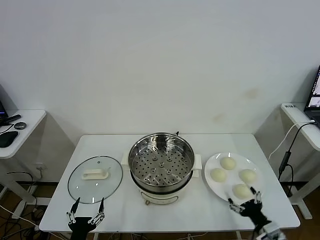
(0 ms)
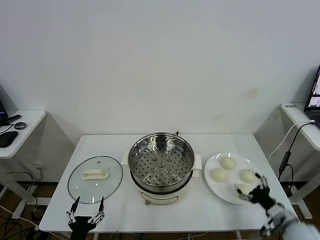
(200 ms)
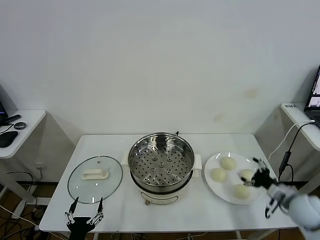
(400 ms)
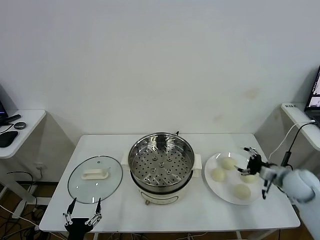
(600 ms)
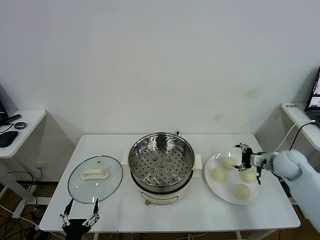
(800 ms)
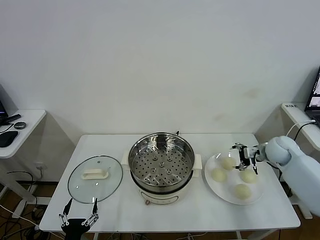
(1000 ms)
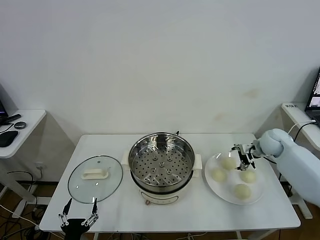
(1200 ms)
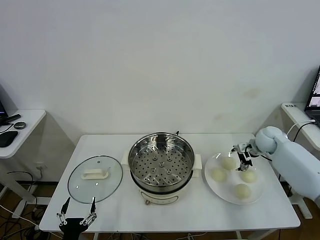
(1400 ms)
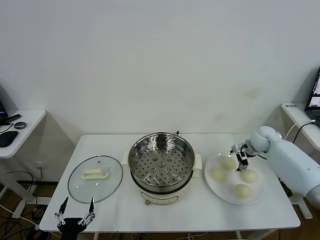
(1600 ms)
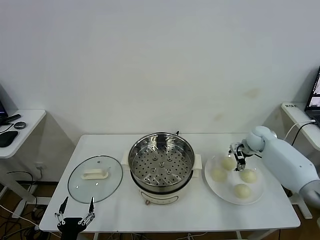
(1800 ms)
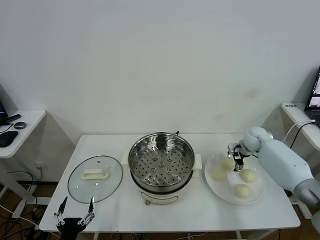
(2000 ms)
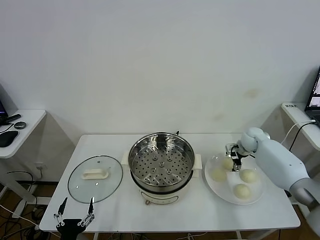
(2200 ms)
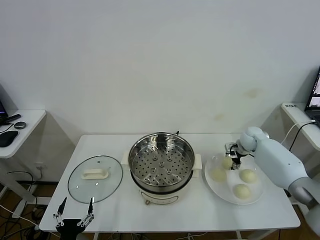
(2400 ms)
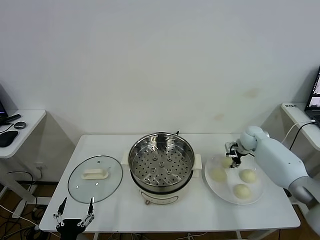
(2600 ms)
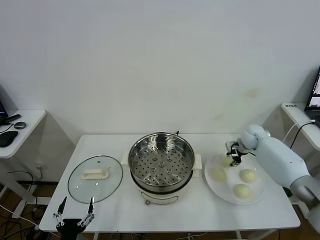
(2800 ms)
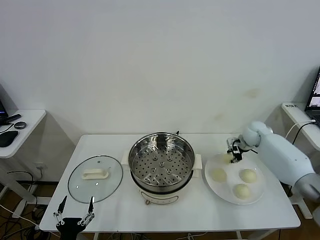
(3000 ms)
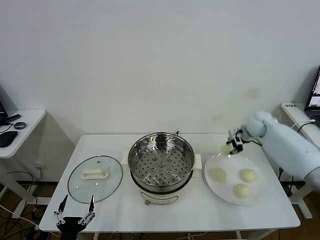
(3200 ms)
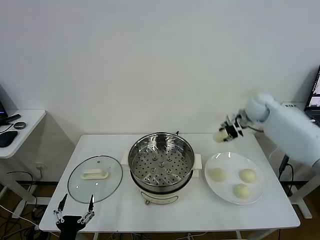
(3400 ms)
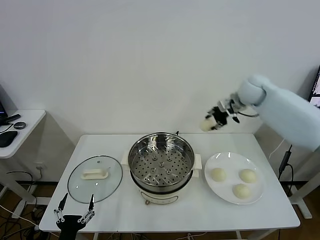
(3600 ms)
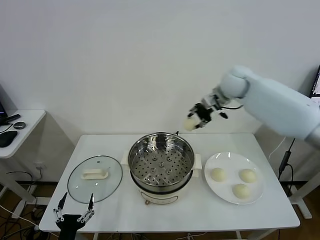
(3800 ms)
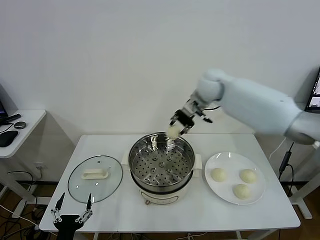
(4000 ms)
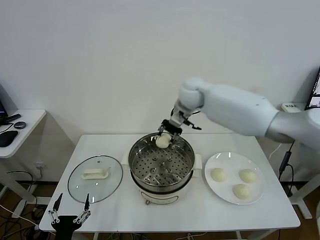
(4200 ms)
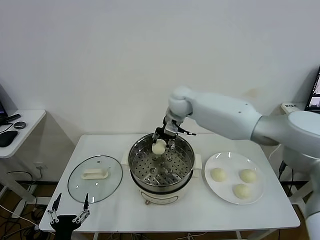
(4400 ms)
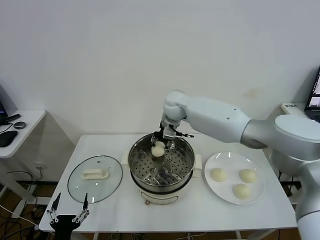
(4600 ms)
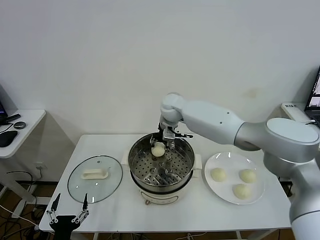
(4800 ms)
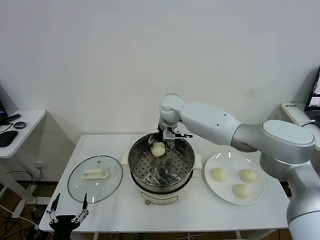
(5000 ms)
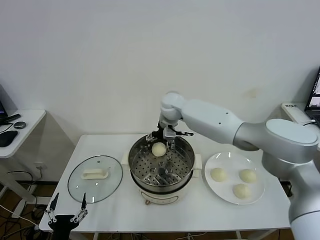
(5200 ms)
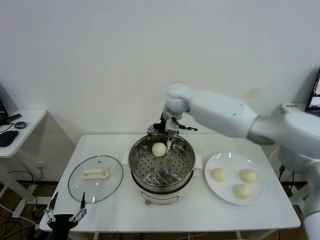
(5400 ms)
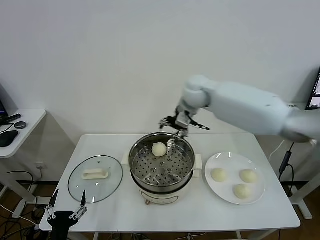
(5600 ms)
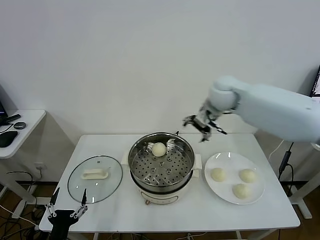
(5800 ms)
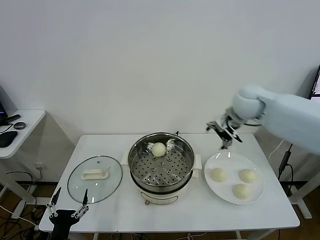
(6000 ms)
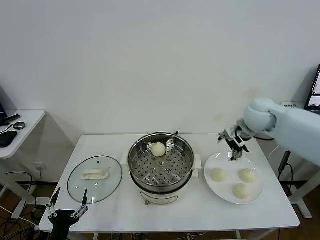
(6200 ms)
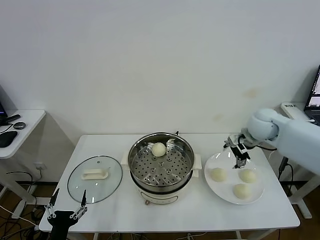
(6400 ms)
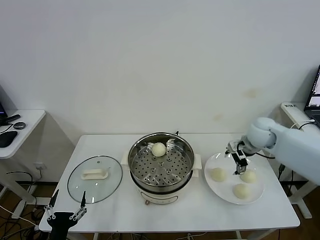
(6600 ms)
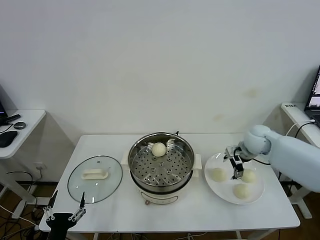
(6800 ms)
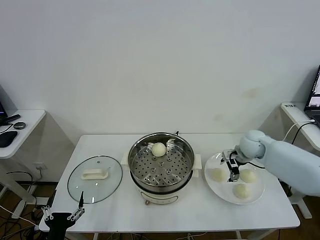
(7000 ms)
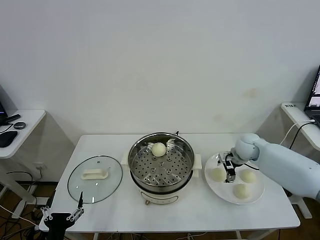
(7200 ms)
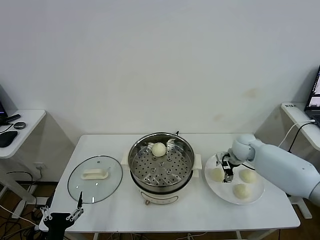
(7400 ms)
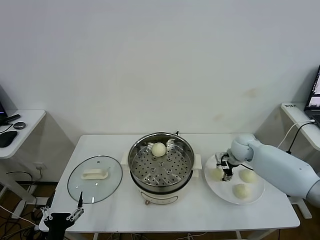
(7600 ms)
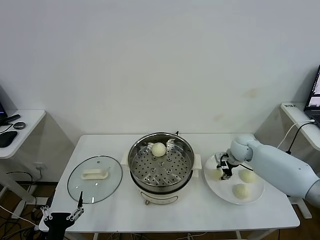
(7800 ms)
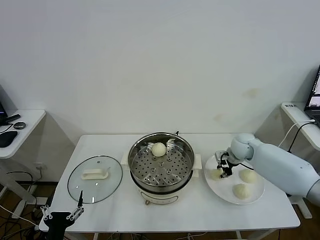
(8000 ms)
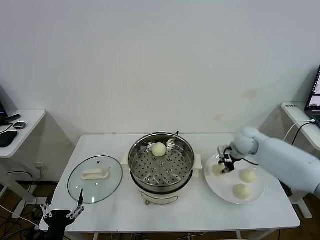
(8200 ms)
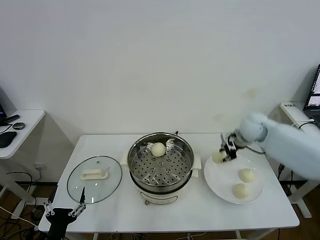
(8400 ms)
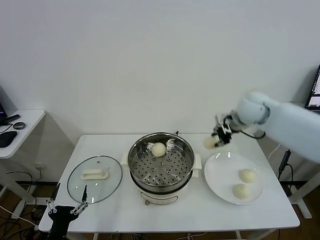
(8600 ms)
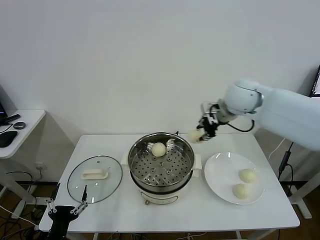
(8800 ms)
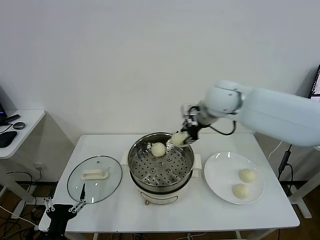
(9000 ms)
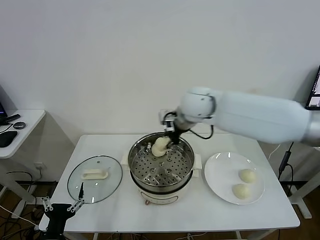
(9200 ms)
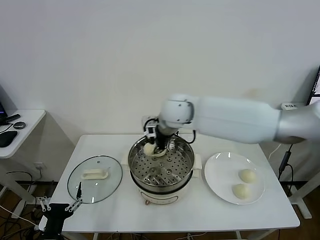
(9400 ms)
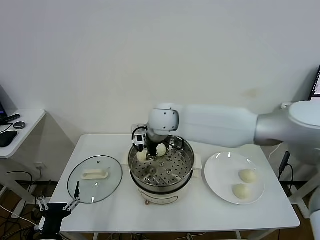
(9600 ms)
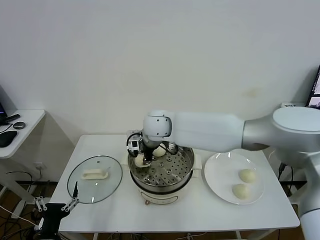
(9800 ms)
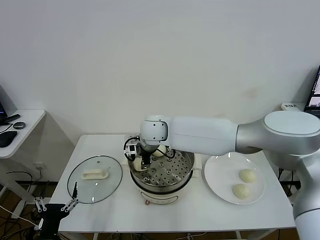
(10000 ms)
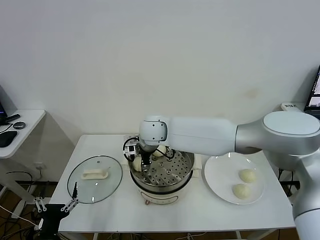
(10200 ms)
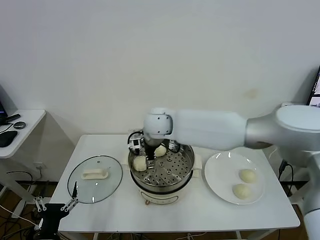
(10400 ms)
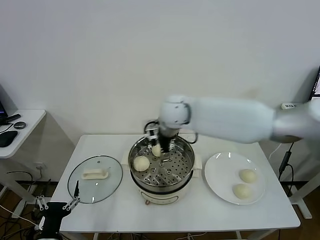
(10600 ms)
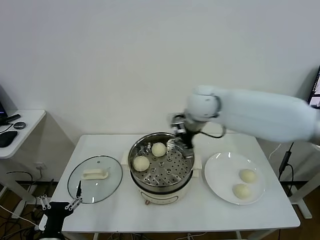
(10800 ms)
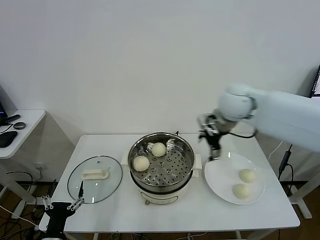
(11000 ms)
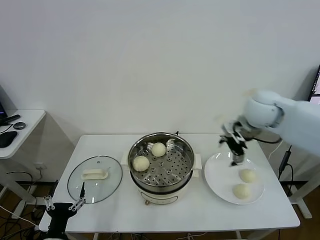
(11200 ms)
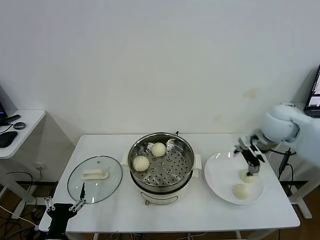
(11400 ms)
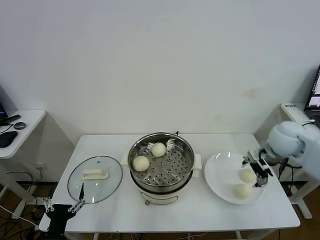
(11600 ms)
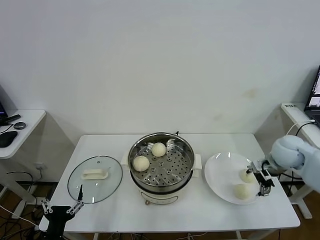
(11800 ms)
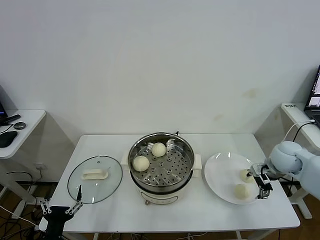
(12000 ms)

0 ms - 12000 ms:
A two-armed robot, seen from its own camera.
Task of the whole recording: take steamed baozi put them in steamer.
Step, 0 ms - 2600 ms: Grasp the baozi in the plate with right gripper.
Step, 2800 ms - 5200 ms: Place the baozi on the steamer with right gripper.
Step, 5400 ms - 7600 ms: Grasp the baozi in the plate with right gripper.
Step, 8000 ms - 10200 ms: Place the baozi on the steamer with right gripper.
1600 ms - 3000 ms: The right gripper closes up.
3000 ms - 4400 ms: The right gripper heads to the left and upward, covering about 35 cm.
4400 ms - 6000 ms: The right gripper travels to the right by about 20 cm, and opens its fingers.
6000 ms - 7600 ms: The right gripper travels downward by some 20 cm, and closes.
7600 ms - 9000 ms: The right gripper is displaced upward and to the left by approximately 30 cm, and closes up.
9000 ms - 10400 ms: The right gripper shifts roughly 20 cm to the left and downward, and opens.
10400 ms - 12000 ms: The right gripper travels to the right by approximately 40 cm.

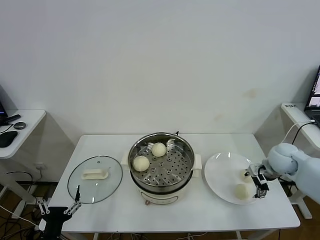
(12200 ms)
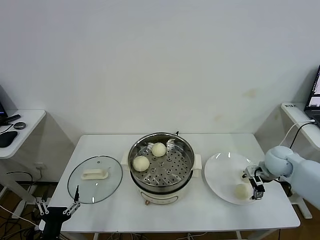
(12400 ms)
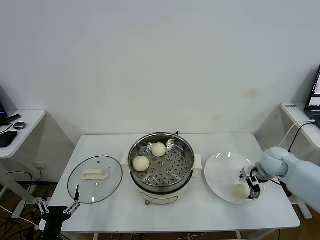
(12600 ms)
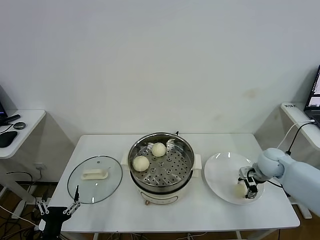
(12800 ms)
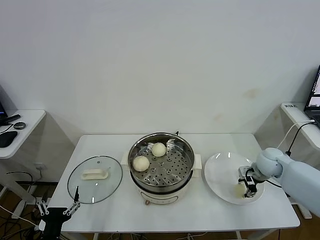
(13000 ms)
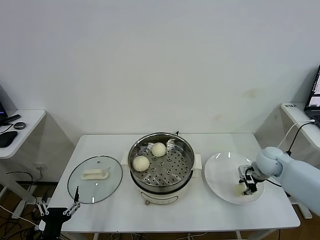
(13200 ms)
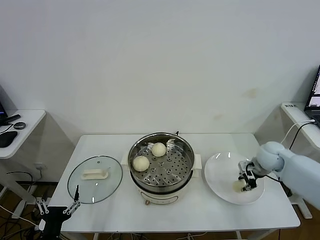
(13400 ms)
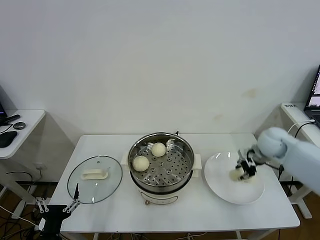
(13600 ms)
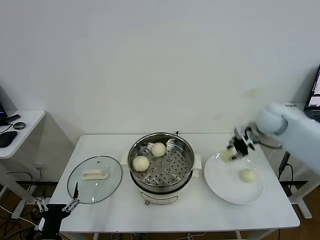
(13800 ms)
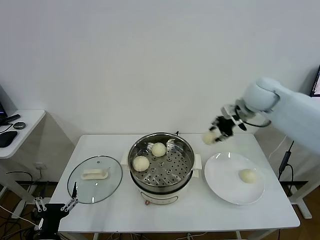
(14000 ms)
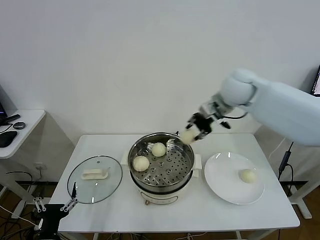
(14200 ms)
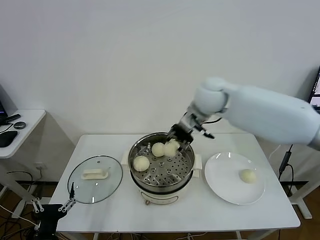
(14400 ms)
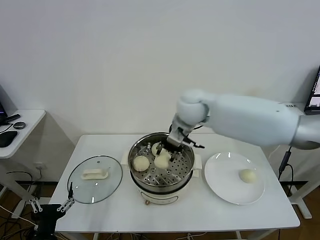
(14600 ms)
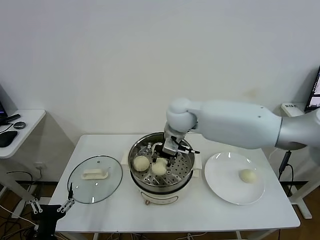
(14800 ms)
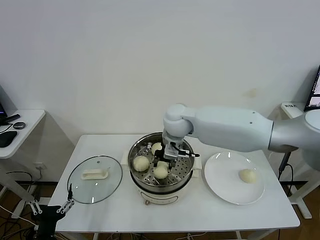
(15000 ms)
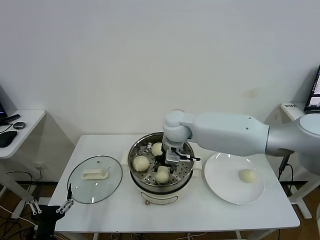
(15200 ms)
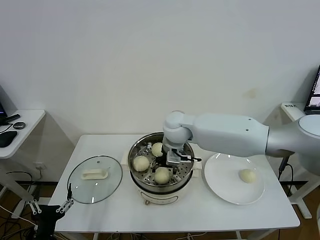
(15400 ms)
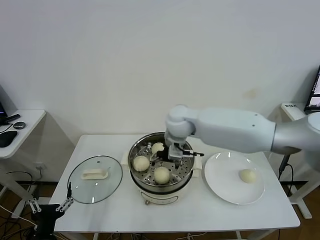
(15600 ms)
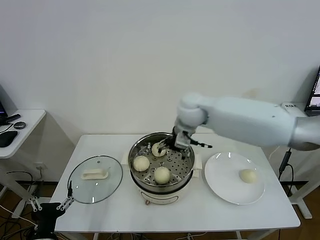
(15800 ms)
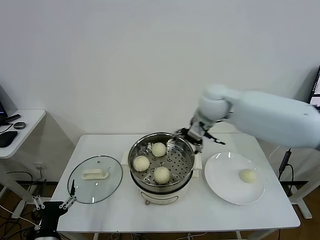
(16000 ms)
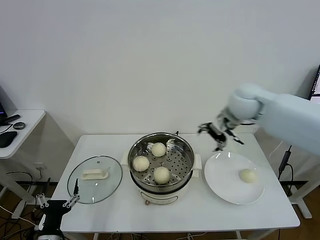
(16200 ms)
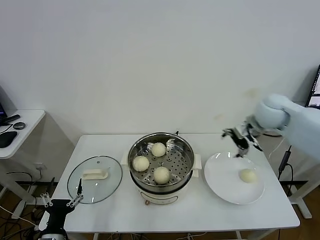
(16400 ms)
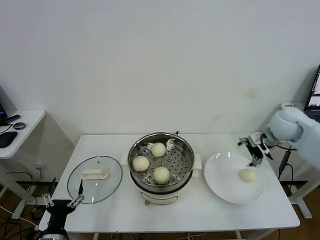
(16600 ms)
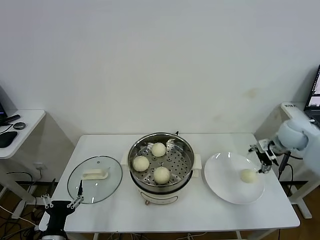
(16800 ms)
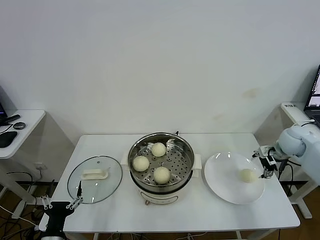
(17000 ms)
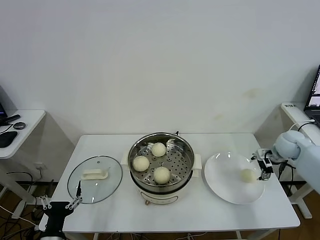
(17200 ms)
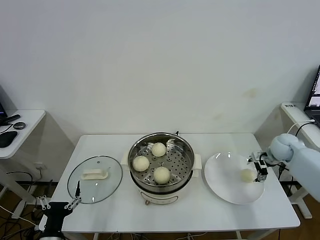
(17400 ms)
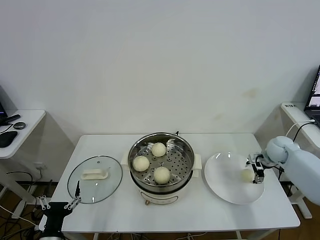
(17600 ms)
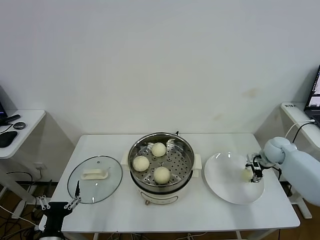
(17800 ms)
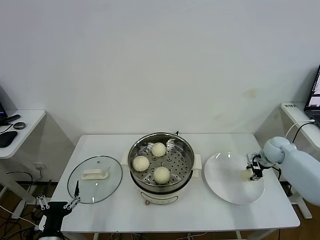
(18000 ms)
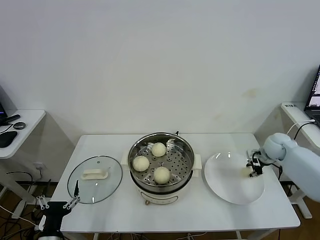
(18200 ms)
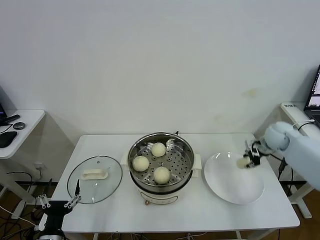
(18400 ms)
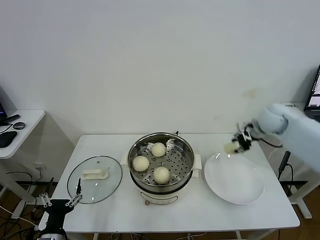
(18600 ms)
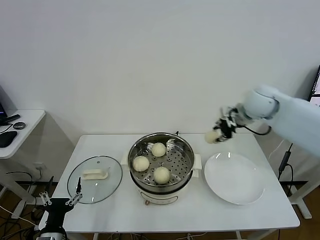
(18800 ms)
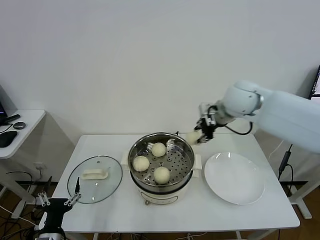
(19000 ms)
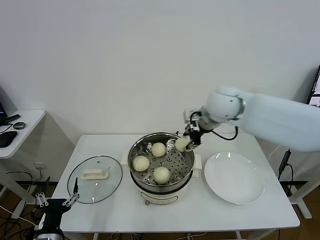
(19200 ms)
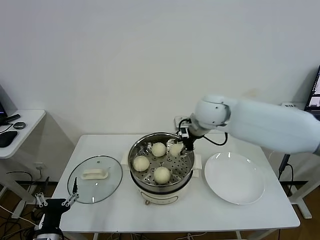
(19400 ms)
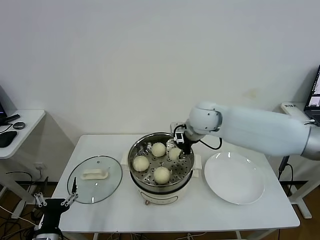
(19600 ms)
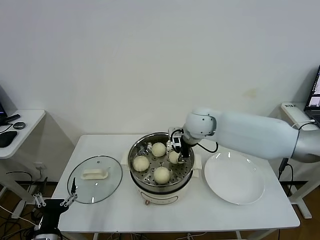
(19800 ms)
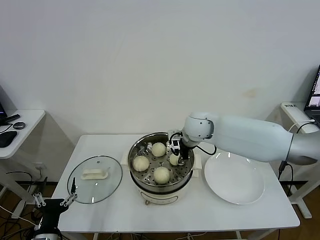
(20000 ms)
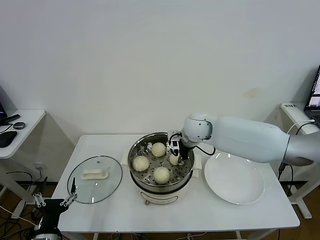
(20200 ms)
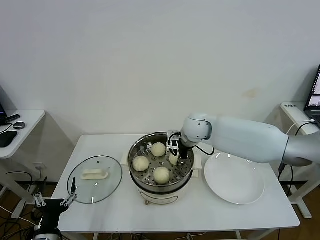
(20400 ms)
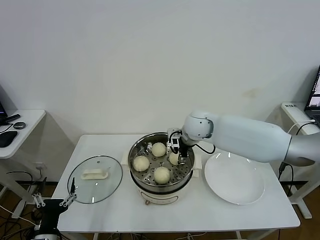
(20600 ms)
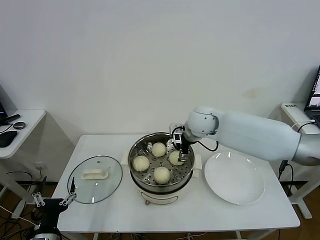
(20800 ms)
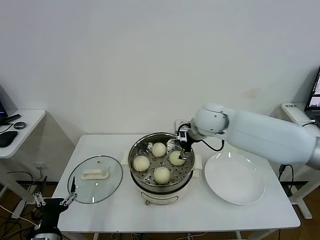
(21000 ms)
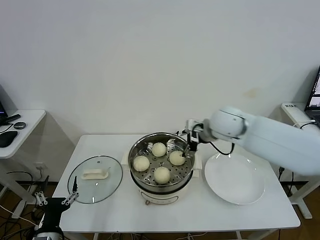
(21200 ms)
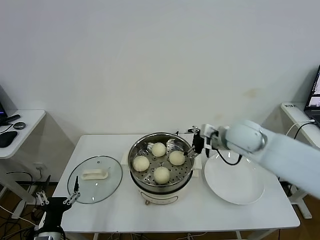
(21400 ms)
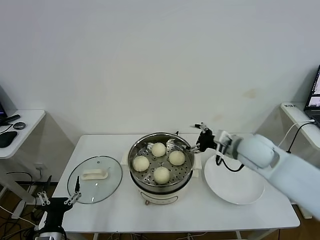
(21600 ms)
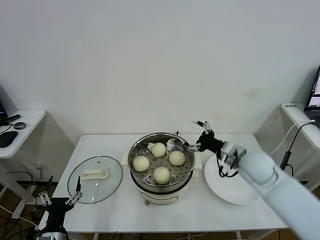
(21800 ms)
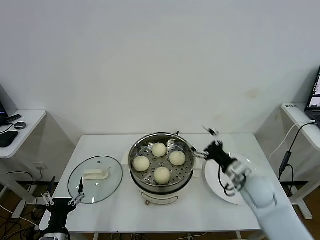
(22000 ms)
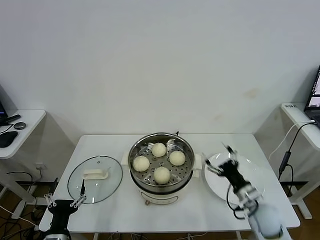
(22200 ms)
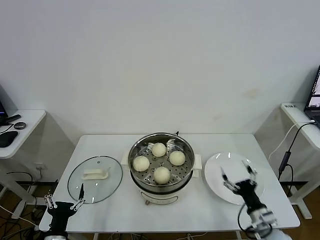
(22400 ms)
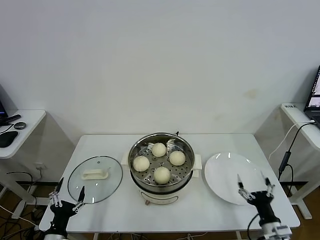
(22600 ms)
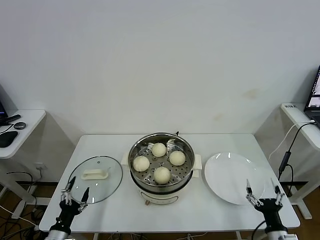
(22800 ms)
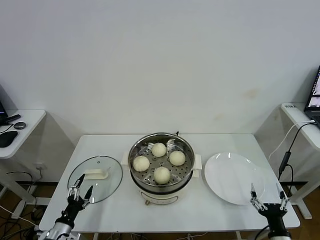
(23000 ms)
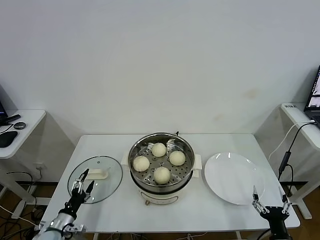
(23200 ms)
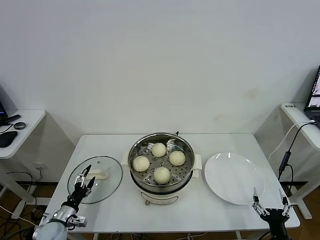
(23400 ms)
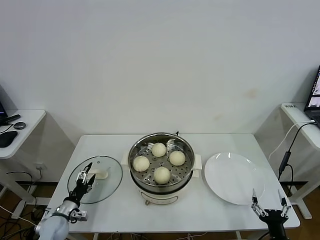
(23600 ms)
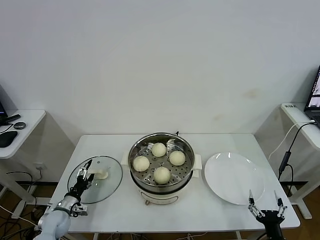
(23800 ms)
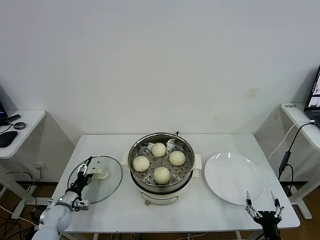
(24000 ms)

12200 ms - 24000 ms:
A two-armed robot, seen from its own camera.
Task of the whole recording: take steamed baozi put them in steamer.
Step, 13200 ms - 15600 ms: Place the baozi on the steamer with right gripper.
Step, 15800 ms - 18000 ms: Grasp the baozi in the plate with right gripper.
Step, 18200 ms - 20800 ms: Place the baozi on the steamer with right gripper.
12200 ms - 13600 ms: The right gripper changes place by approximately 5 cm, and closes up.
13600 ms - 15200 ms: The right gripper moves to the left, approximately 35 cm.
15200 ms - 16600 ms: The right gripper travels to the right by approximately 35 cm, and opens.
16600 ms - 18200 ms: The right gripper shifts about 15 cm downward and to the right, and closes up.
18200 ms - 19600 ms: The right gripper travels to the left and upward by some 35 cm.
19600 ms - 21000 ms: The right gripper opens its fingers.
21000 ms - 22600 ms: The right gripper goes about 50 cm backward, downward and to the right.
22600 ms - 24000 ms: The right gripper is displaced backward by about 5 cm. Meanwhile the left gripper is displaced forward by some 20 cm.
